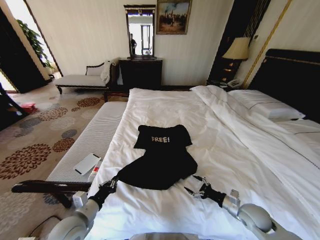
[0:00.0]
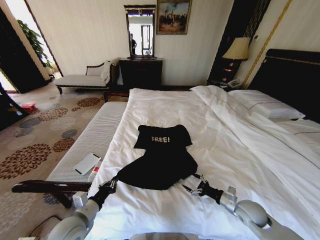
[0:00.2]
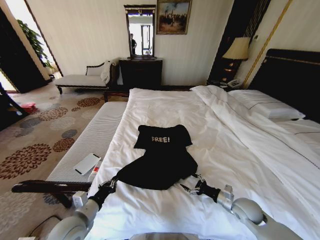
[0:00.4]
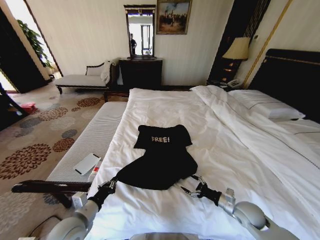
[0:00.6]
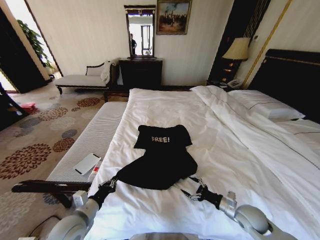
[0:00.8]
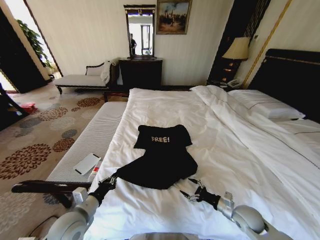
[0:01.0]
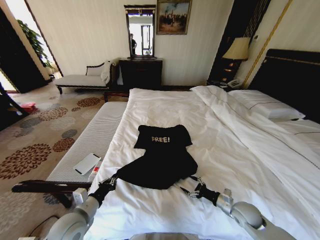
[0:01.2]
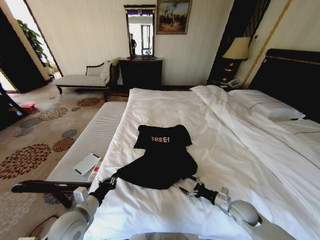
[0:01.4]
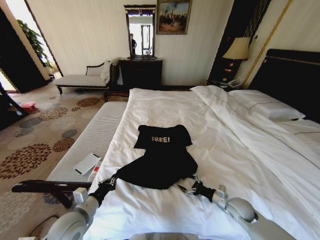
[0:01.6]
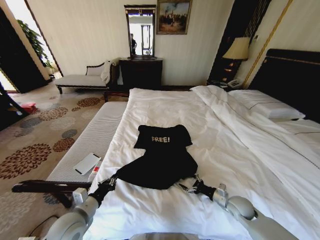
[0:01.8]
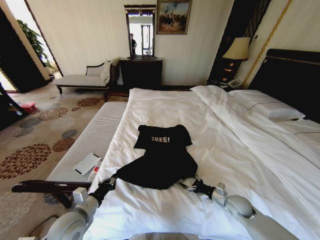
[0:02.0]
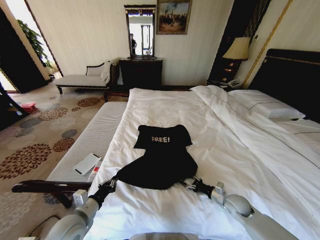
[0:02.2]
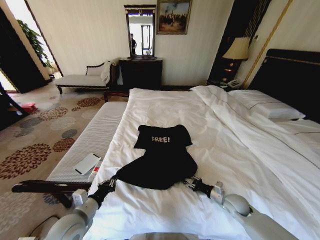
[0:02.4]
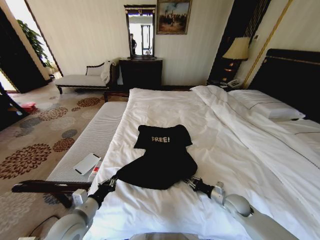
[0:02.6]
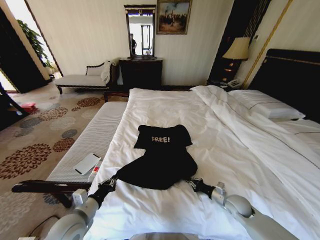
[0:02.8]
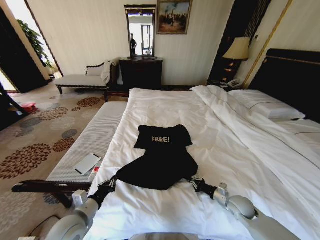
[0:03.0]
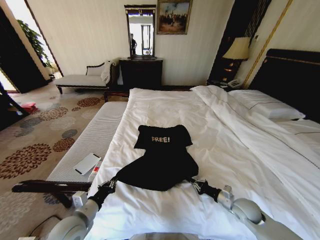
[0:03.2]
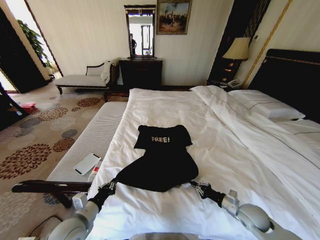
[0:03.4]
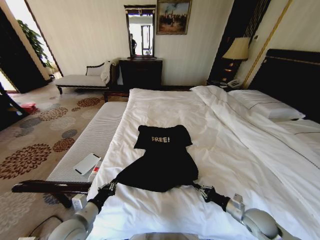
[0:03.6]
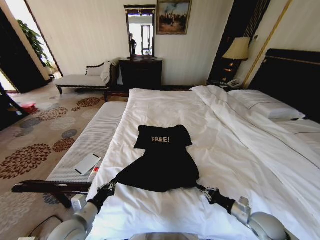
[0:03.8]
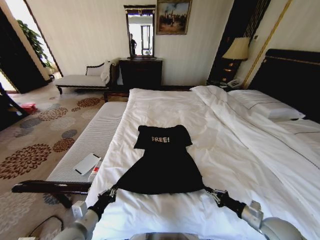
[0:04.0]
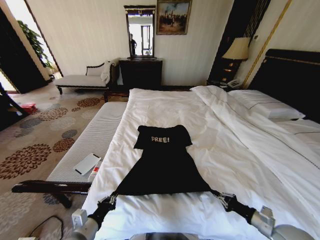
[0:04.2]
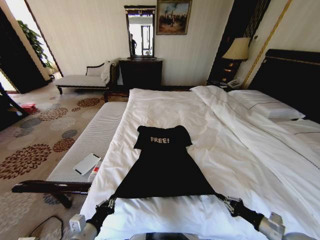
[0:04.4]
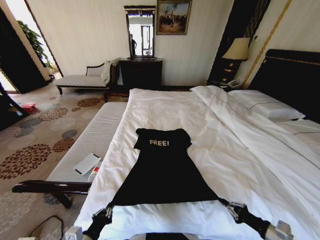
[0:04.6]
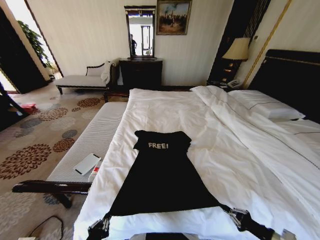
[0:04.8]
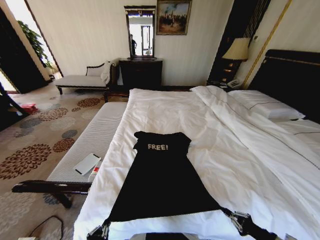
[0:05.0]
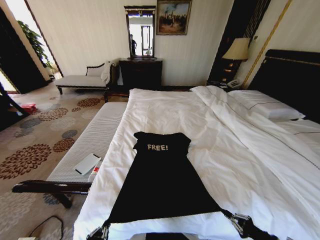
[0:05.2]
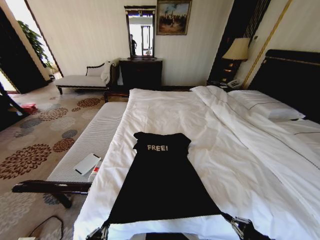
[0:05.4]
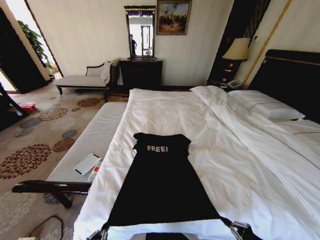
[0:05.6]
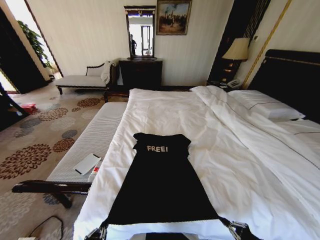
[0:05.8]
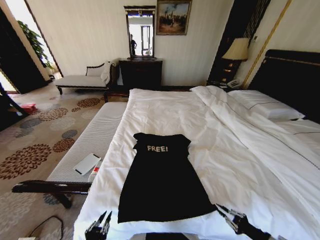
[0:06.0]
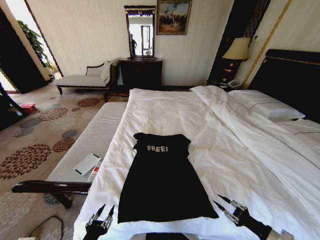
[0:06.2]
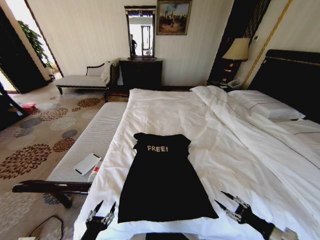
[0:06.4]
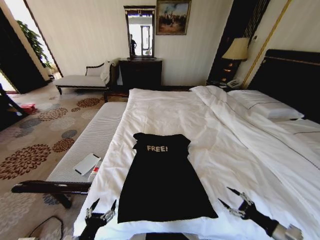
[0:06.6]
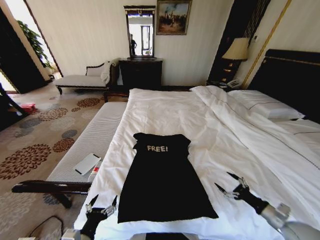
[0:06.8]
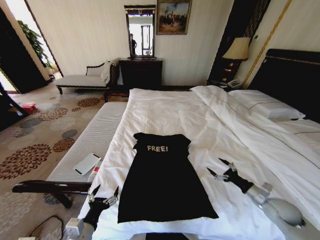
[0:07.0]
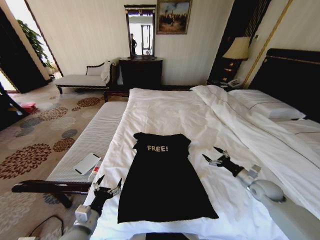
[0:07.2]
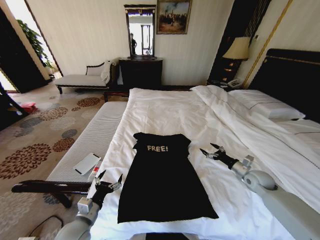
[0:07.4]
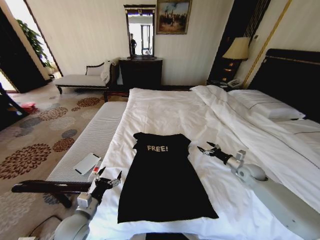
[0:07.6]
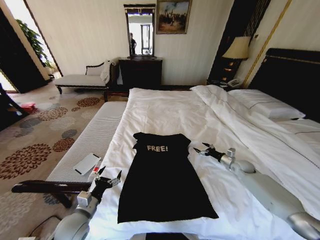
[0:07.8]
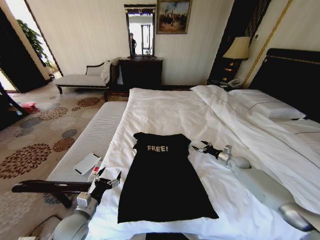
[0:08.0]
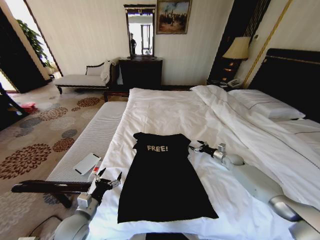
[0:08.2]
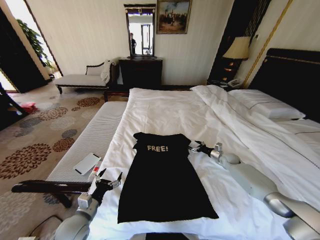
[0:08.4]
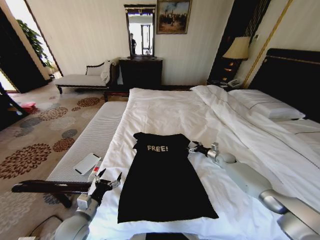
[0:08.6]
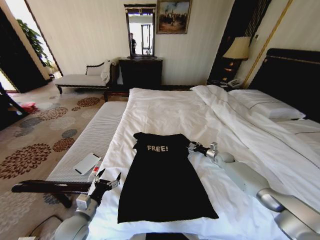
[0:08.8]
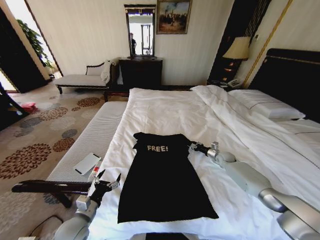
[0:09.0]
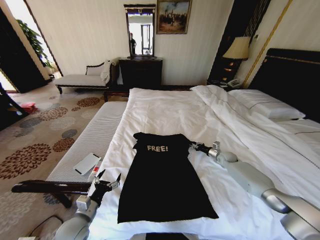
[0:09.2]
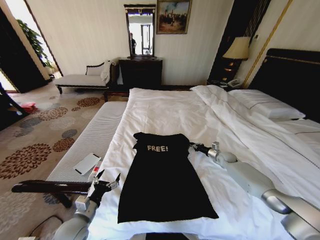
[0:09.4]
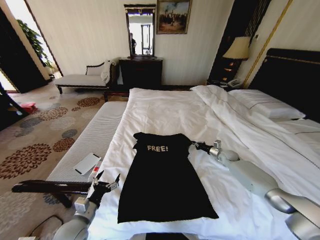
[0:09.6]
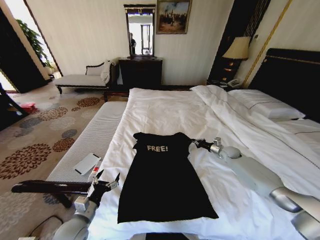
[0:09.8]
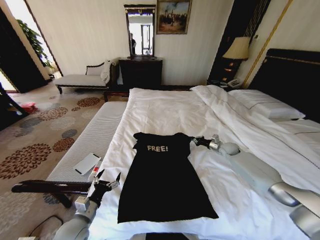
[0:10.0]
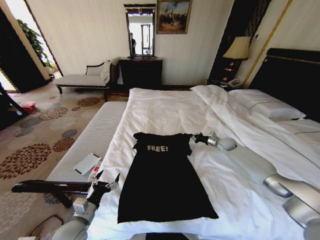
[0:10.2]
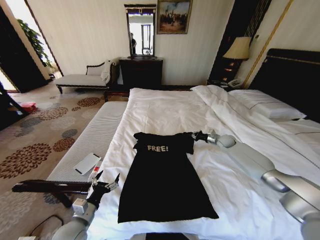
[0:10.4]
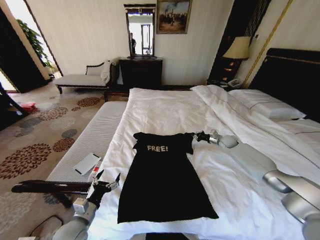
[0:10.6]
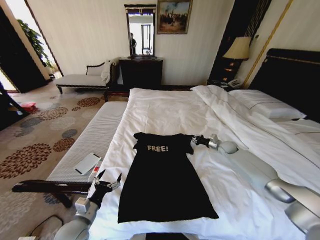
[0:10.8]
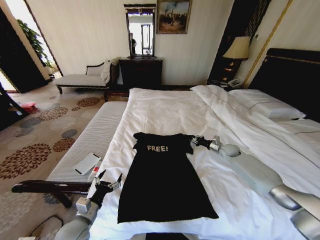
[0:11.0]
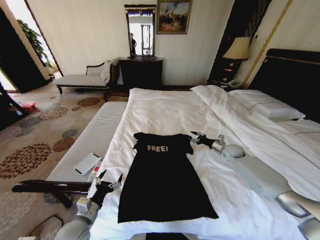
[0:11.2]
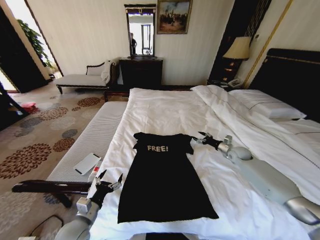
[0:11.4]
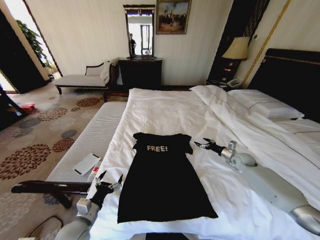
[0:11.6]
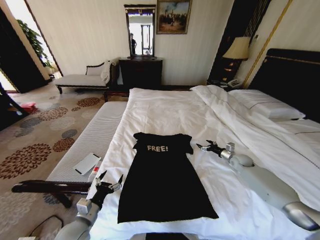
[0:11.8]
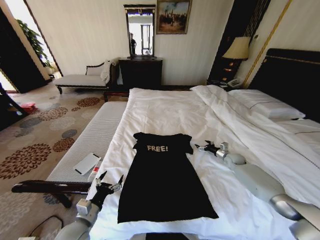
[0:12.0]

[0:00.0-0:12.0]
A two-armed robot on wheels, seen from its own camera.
Task of the whole recording: Fold the clothes on the bed.
0:00.0 to 0:01.6: The grippers stay close to where they were, moving slightly.
0:01.6 to 0:03.0: The right gripper closes its fingers.
0:03.0 to 0:04.4: The left gripper heads backward, covering approximately 5 cm. The right gripper travels backward, to the right and upward by approximately 20 cm.
0:04.4 to 0:06.0: The grippers both shift backward by roughly 5 cm.
0:06.0 to 0:07.6: The right gripper travels forward by approximately 30 cm, and opens up. Meanwhile the left gripper is displaced forward by about 15 cm, and opens up.
0:07.6 to 0:09.0: The right gripper goes about 15 cm forward and downward, and closes up.
0:09.0 to 0:10.4: The right gripper goes roughly 10 cm upward and forward, and closes up.
0:10.4 to 0:12.0: The right gripper is displaced backward and downward by some 10 cm, and opens up.

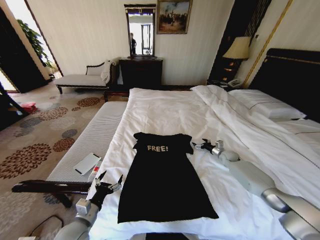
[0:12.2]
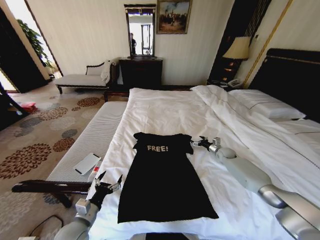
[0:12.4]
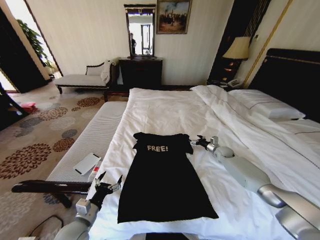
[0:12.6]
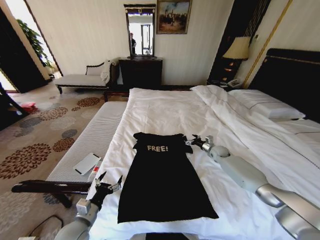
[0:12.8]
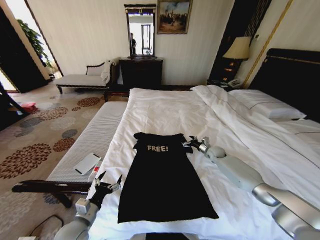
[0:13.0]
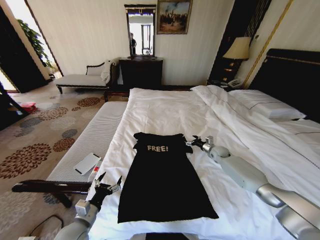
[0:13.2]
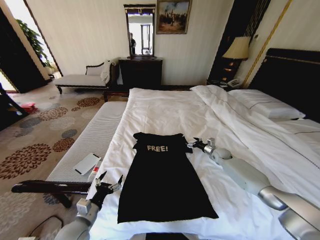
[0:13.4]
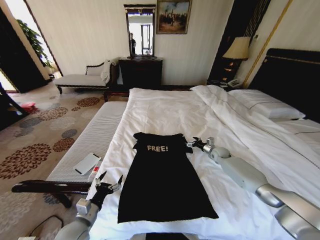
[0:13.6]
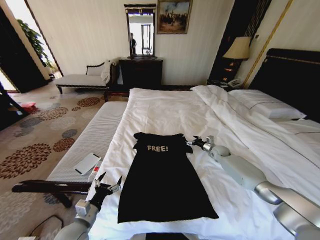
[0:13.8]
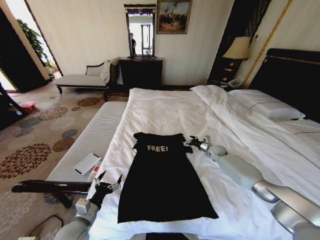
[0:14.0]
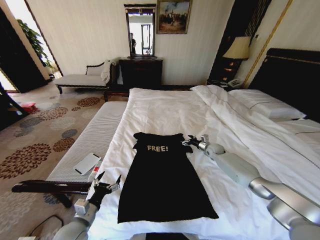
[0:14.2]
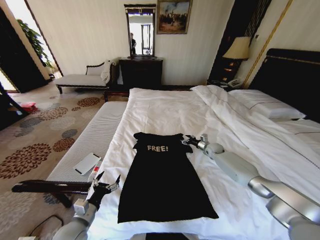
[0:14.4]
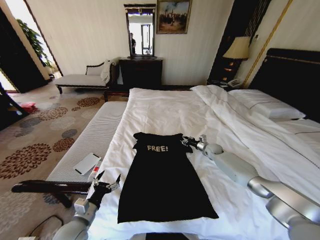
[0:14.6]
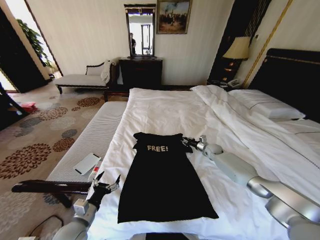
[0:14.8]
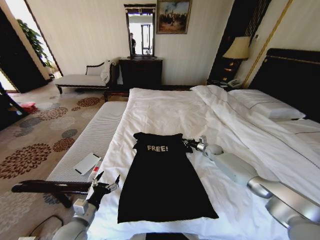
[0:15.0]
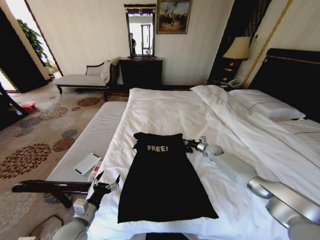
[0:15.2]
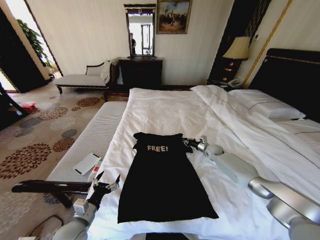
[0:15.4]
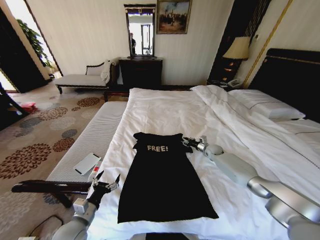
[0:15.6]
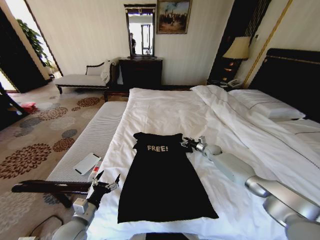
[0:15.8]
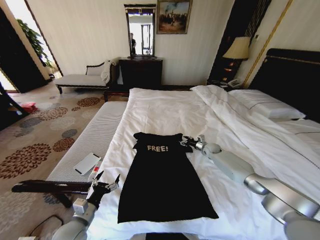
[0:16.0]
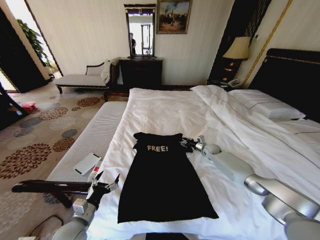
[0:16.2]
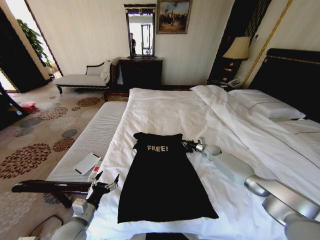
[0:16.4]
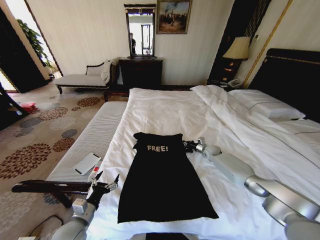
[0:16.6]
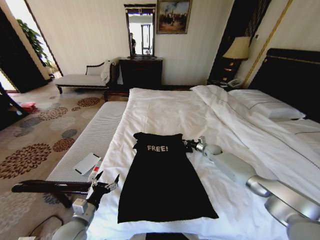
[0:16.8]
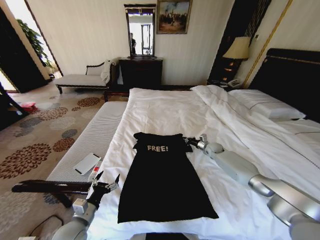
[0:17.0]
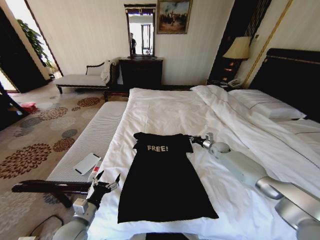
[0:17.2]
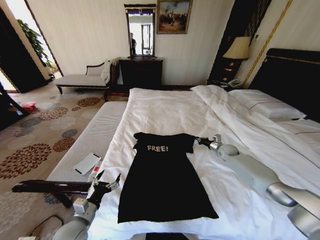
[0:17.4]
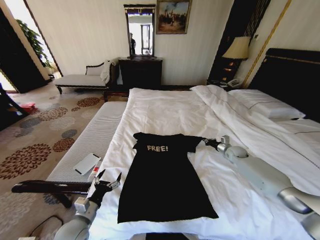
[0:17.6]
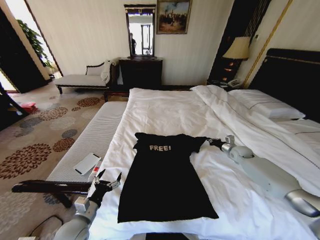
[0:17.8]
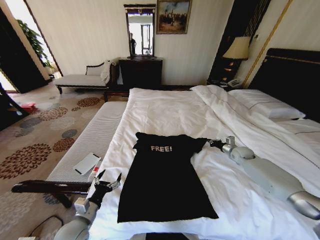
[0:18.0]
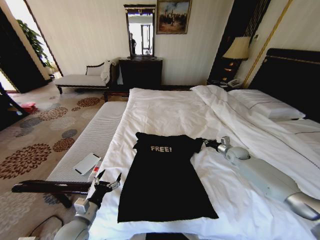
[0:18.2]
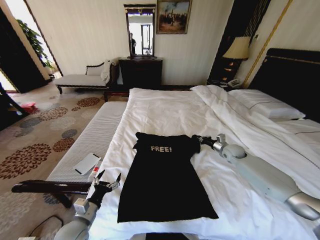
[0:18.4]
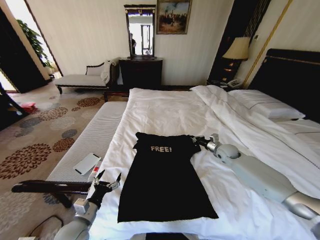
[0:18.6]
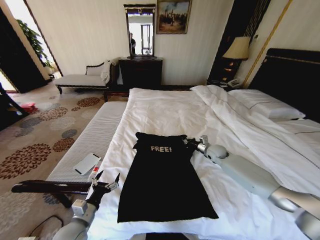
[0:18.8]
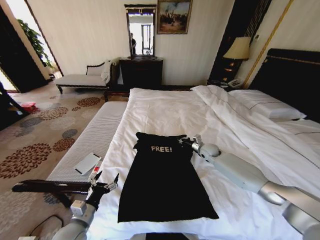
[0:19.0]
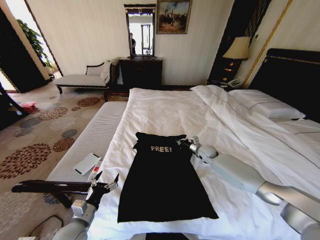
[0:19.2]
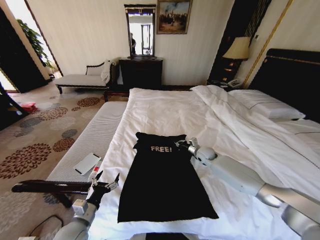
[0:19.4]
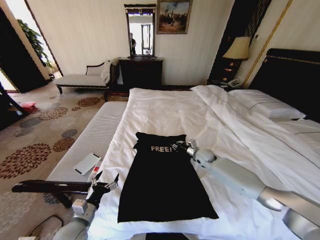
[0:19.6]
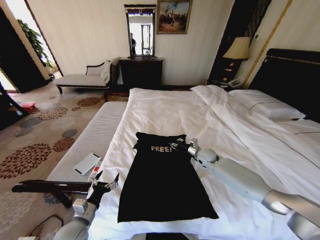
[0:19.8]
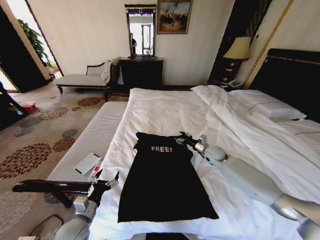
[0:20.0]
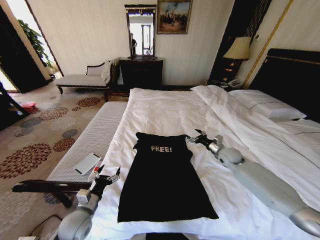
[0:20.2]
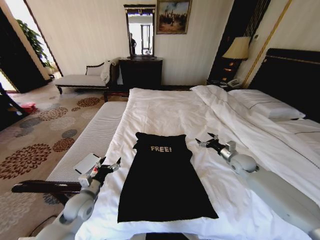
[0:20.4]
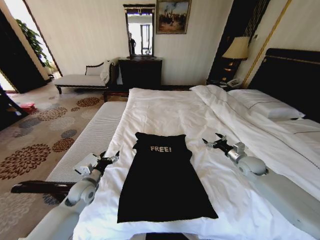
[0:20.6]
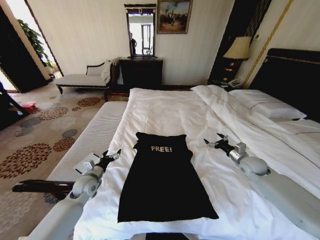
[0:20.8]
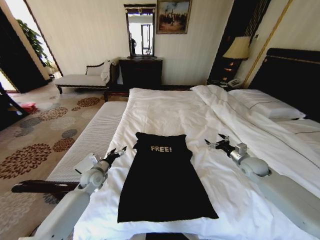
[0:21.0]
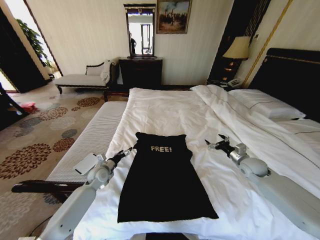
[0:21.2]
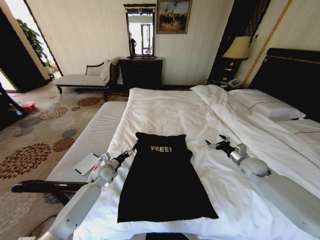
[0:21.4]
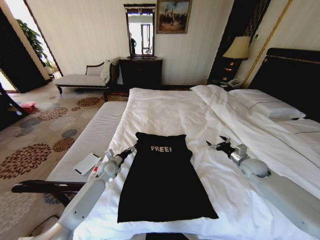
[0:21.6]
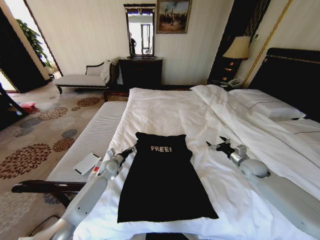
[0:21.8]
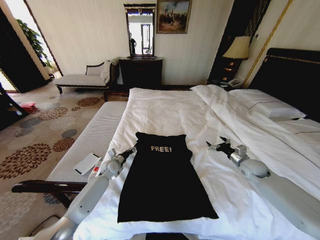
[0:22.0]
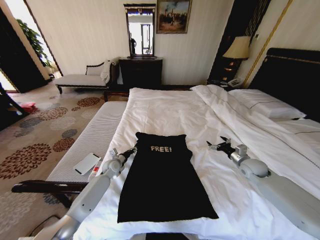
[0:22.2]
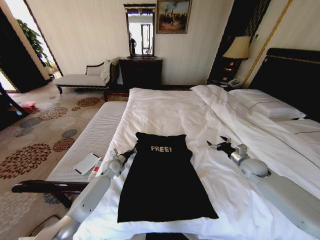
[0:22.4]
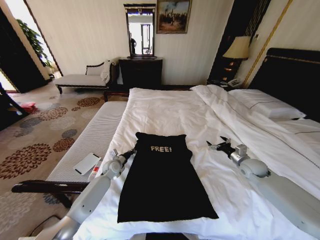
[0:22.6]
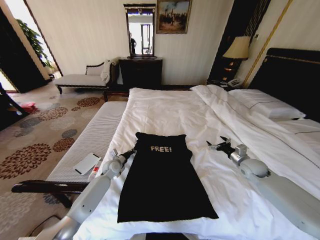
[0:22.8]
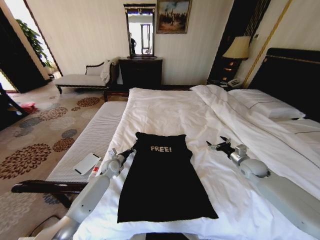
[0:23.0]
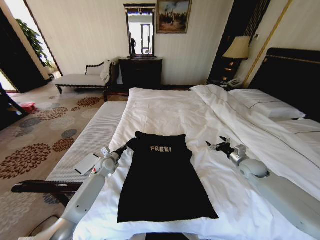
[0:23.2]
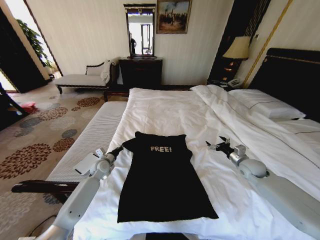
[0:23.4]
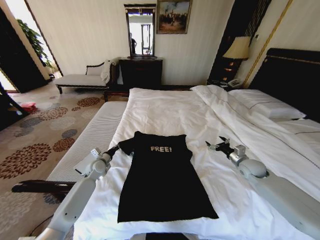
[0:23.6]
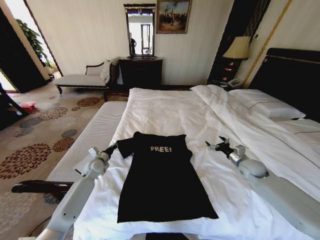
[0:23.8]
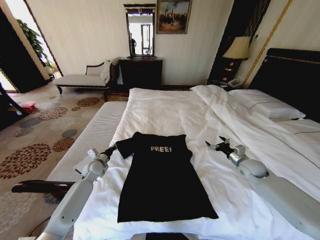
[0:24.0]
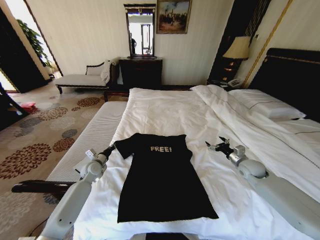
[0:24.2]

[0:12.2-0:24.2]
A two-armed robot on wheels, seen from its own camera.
Task of the whole recording: Fold the clothes on the bed.
0:12.2 to 0:13.8: The right gripper is displaced to the left by some 5 cm.
0:13.8 to 0:15.2: The right gripper closes.
0:15.2 to 0:16.6: The right gripper opens and closes again.
0:16.6 to 0:18.2: The right gripper goes roughly 15 cm to the right, backward and upward.
0:18.2 to 0:19.8: The right gripper moves to the left, about 20 cm, and opens its fingers.
0:19.8 to 0:21.2: The right gripper travels to the right and backward by about 20 cm, and opens its fingers. Meanwhile the left gripper goes approximately 25 cm forward.
0:21.2 to 0:22.6: The left gripper travels forward by approximately 5 cm, and closes its fingers.
0:22.6 to 0:24.2: The left gripper travels to the left by about 10 cm.
